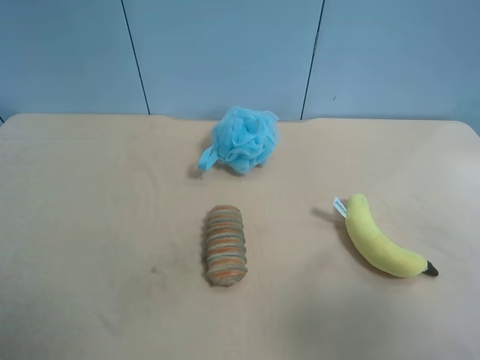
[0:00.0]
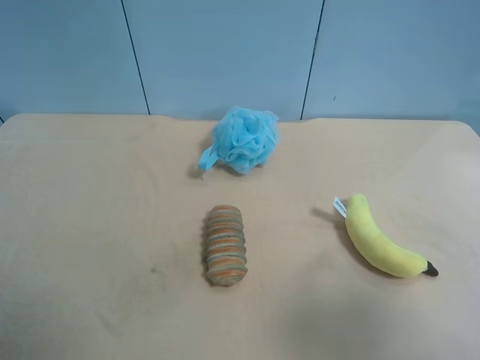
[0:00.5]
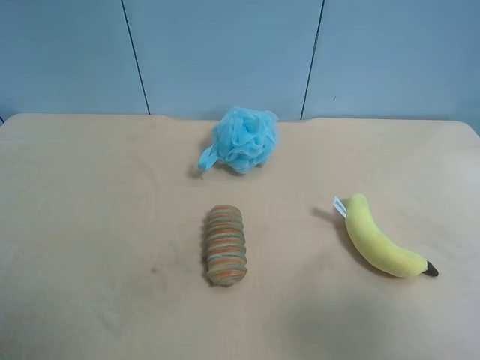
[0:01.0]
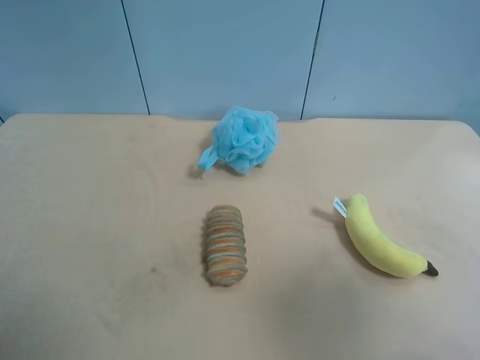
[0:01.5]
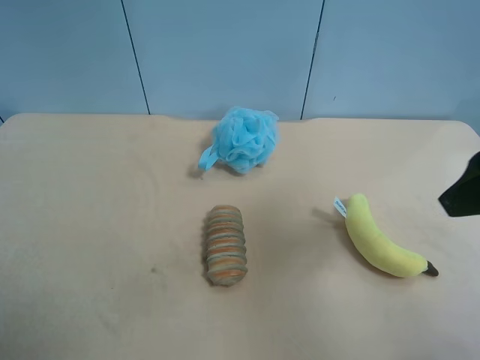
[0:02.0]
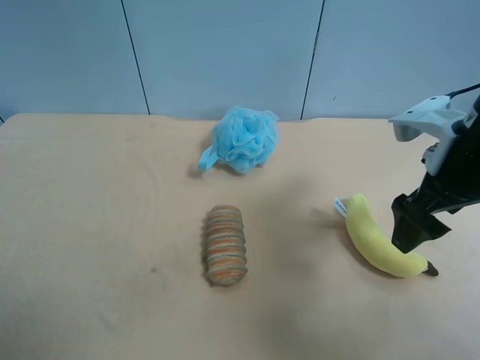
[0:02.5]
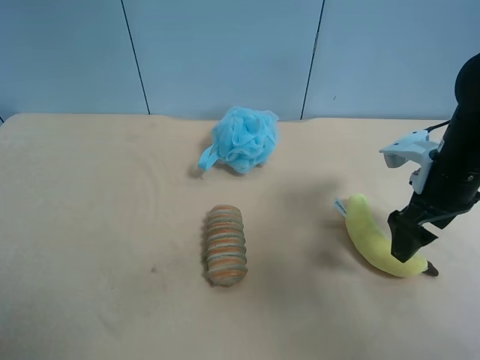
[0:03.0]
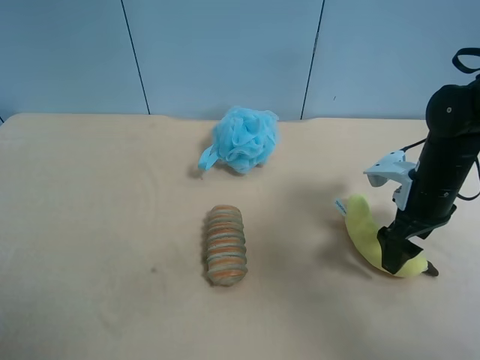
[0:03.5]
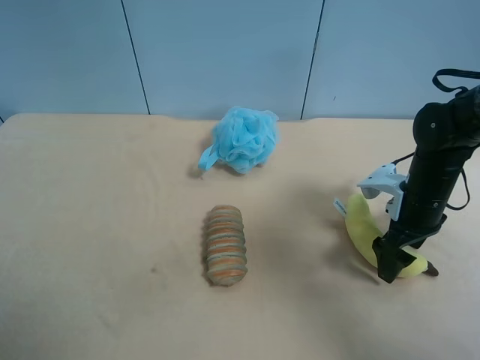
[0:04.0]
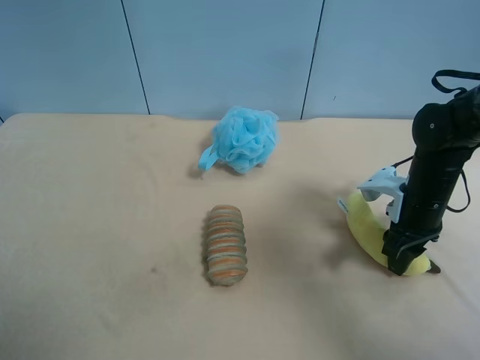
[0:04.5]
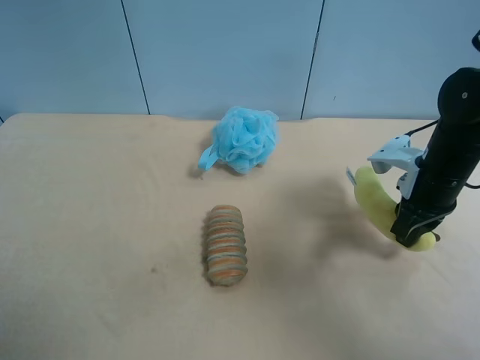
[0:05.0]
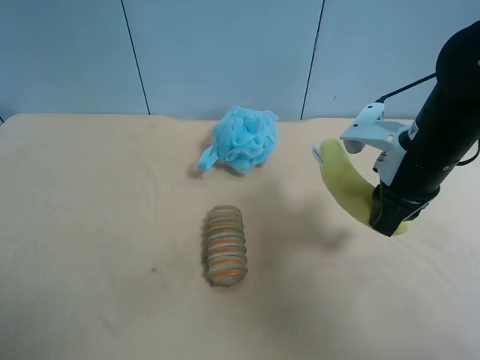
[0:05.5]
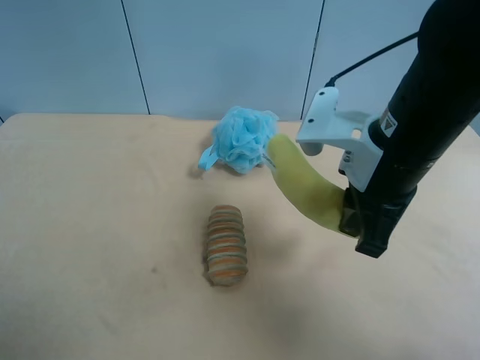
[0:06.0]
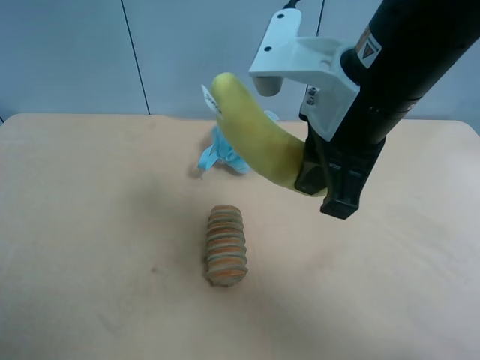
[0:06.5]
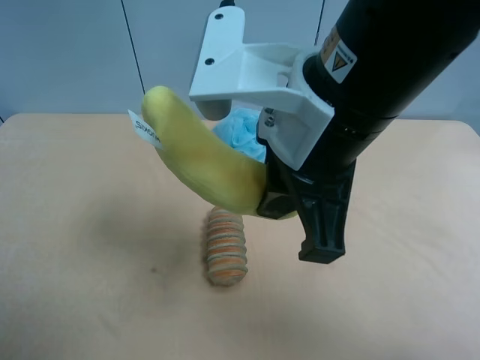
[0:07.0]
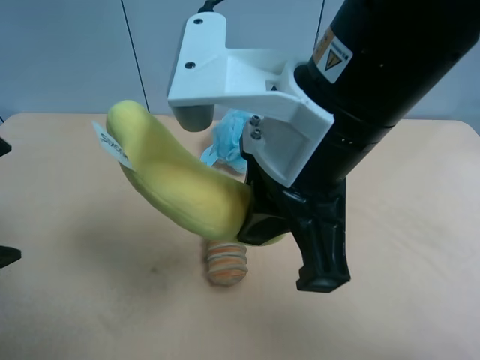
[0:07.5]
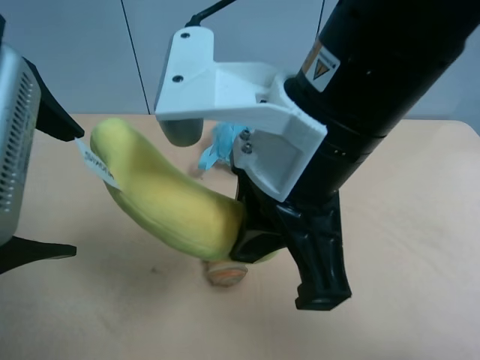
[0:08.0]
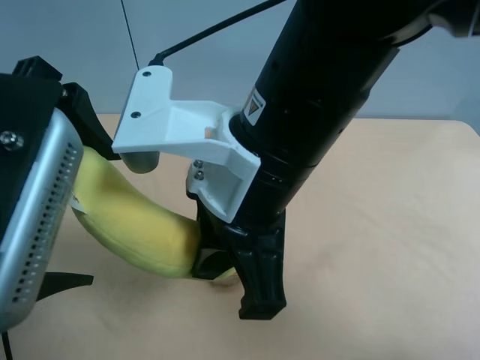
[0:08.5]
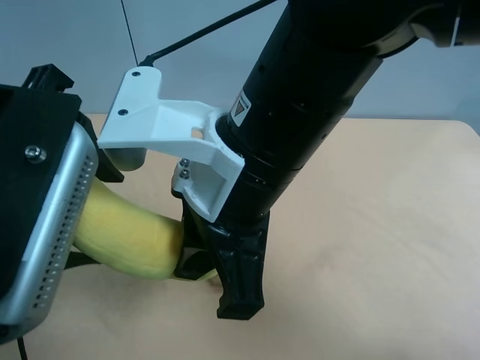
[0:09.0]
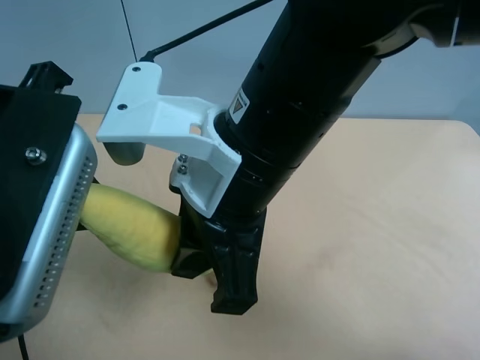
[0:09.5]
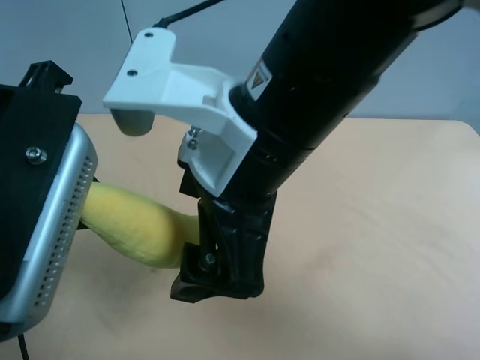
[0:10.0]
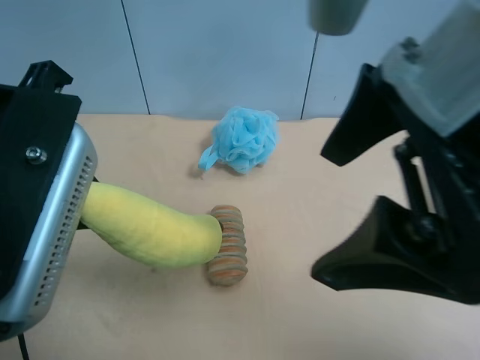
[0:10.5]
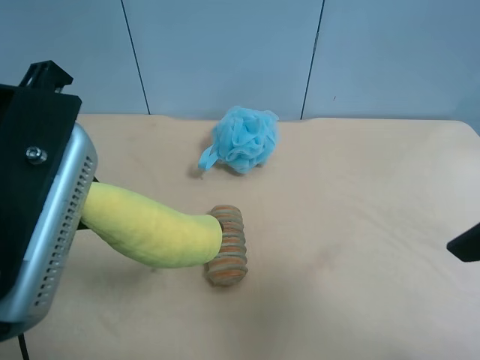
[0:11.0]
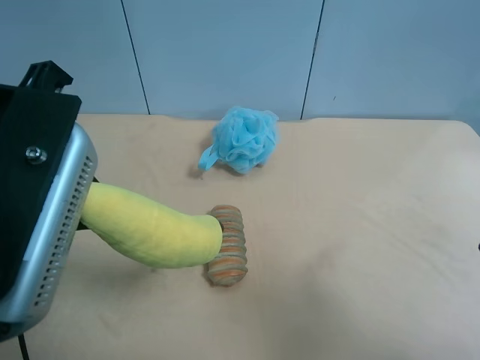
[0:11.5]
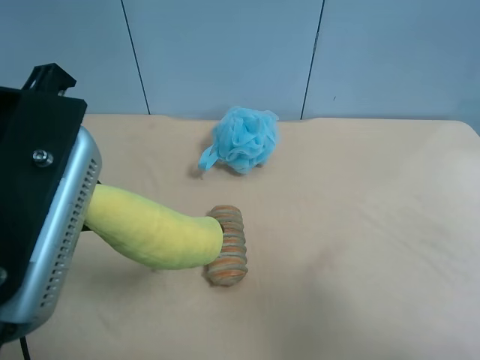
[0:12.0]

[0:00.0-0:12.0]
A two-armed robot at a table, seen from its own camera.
Task of the whole recording: use the right gripper to pick up the item and transfer it from the right gripper to the left gripper.
0:00.0 to 0:02.0: The right gripper is displaced forward by approximately 15 cm.
0:02.0 to 0:04.0: The right gripper shifts approximately 25 cm downward and forward.
0:04.0 to 0:06.0: The right gripper shifts approximately 20 cm upward, to the left and backward, and closes up.
0:06.0 to 0:08.0: The left gripper is displaced to the right, forward and upward by roughly 20 cm; the right gripper is displaced to the left, backward and upward by roughly 10 cm.
0:08.0 to 0:10.0: The right gripper opens up, while the left gripper closes.
0:10.0 to 0:12.0: The right gripper travels to the right and backward by some 25 cm.

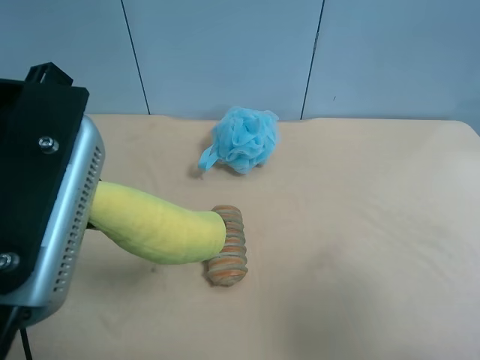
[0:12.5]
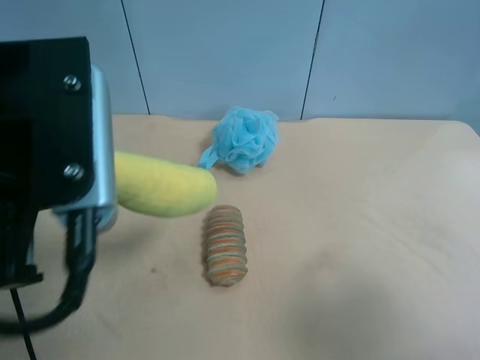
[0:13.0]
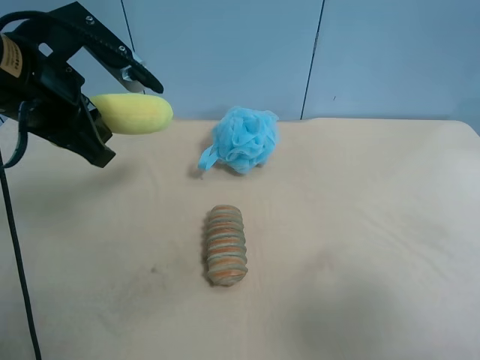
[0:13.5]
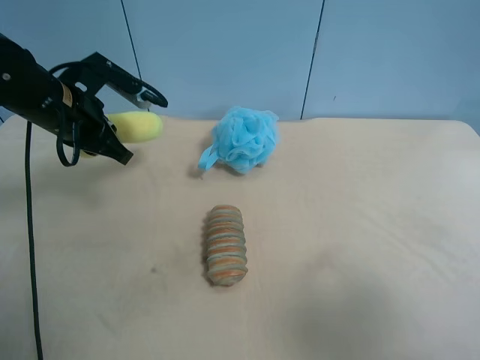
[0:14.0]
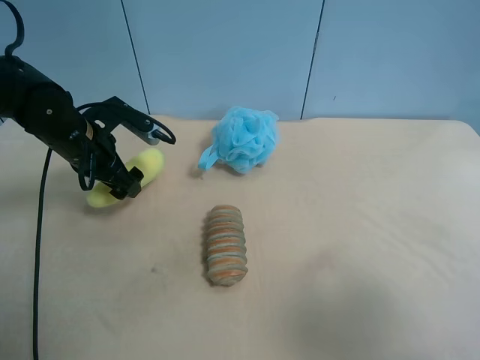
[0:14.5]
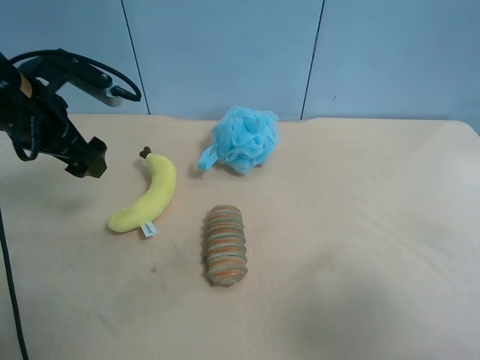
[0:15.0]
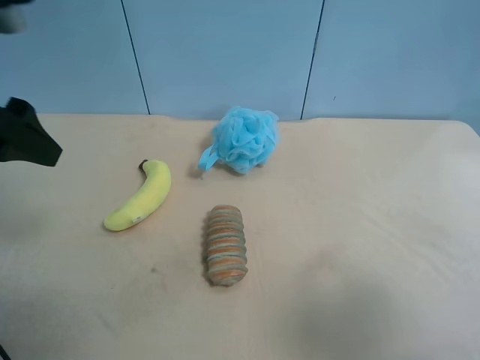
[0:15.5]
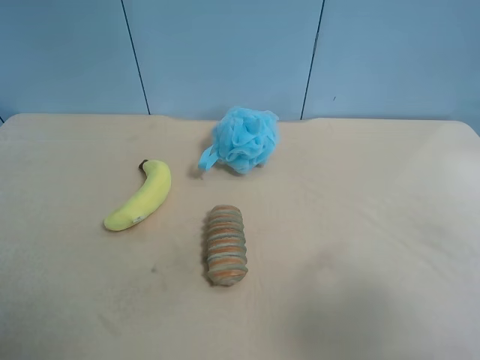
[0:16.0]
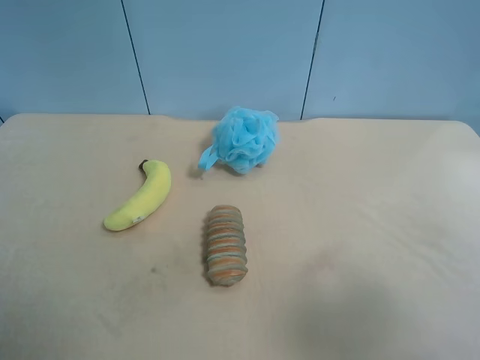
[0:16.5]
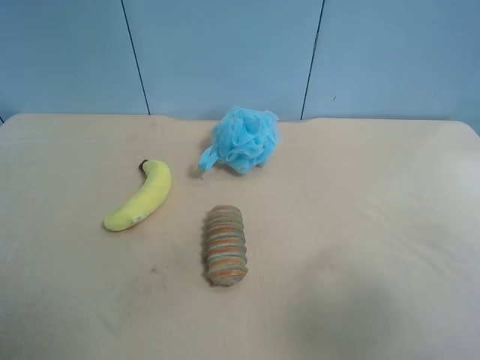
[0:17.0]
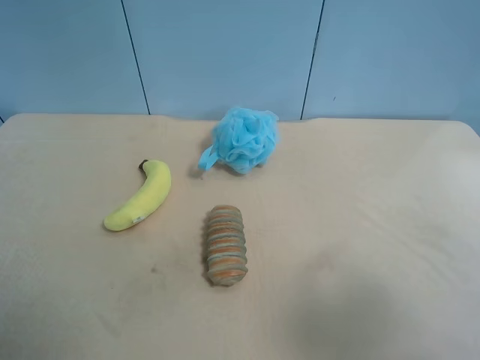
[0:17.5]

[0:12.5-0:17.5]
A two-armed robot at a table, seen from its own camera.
Task of the whole recording: use the right gripper to pick up the item and transfer it from the right gripper to the left gripper.
0:12.5 to 0:15.0: The left gripper goes about 20 cm forward, to the left and downward, and opens its fingers.
0:15.0 to 0:17.5: The left gripper shifts approximately 30 cm backward.

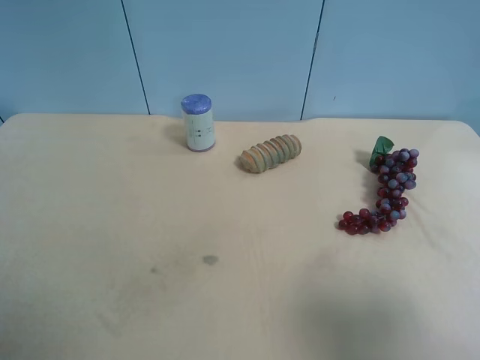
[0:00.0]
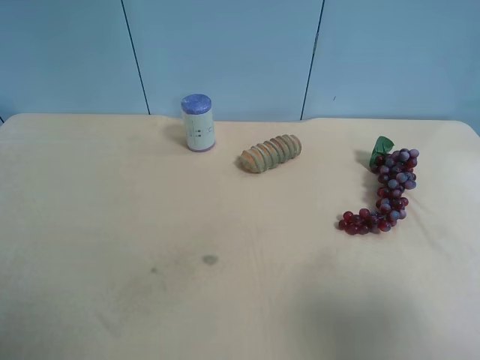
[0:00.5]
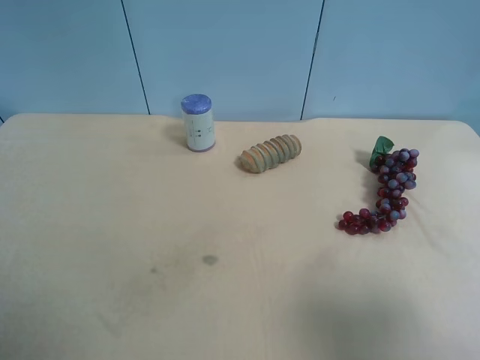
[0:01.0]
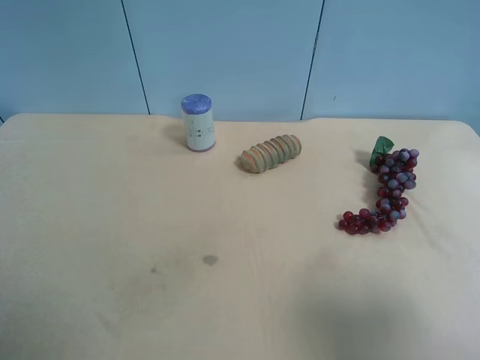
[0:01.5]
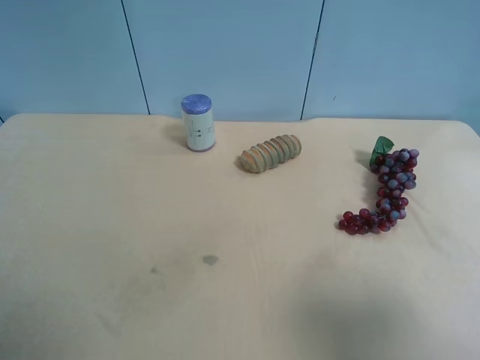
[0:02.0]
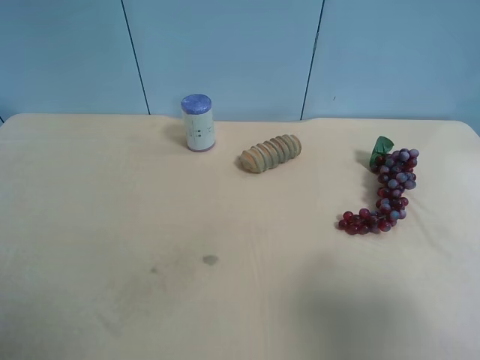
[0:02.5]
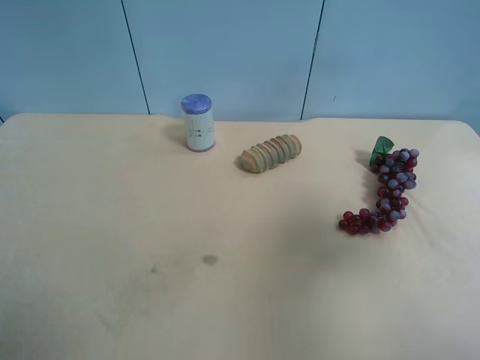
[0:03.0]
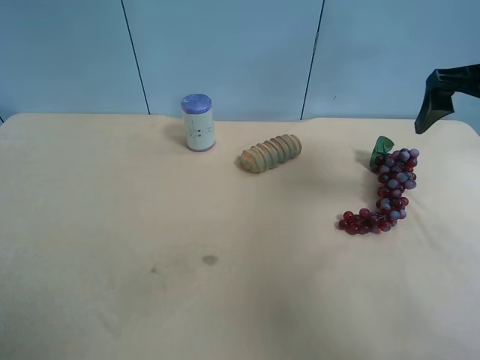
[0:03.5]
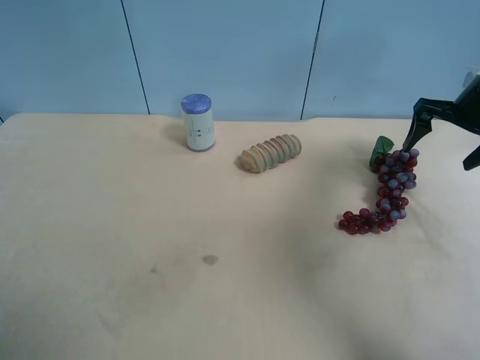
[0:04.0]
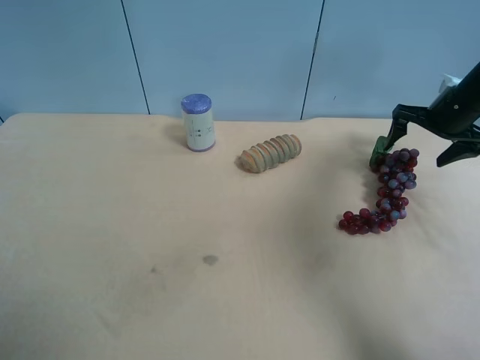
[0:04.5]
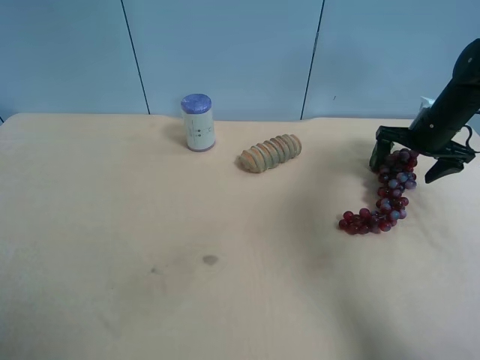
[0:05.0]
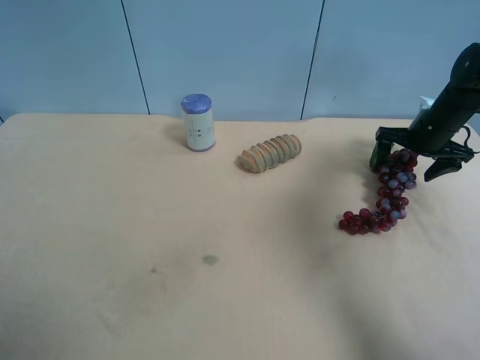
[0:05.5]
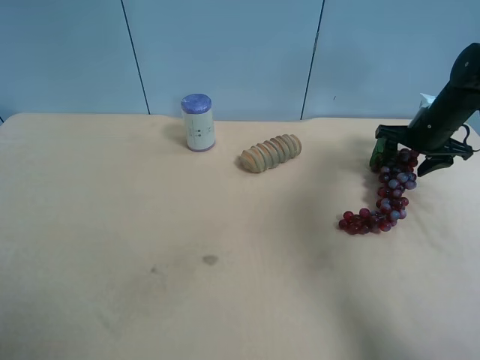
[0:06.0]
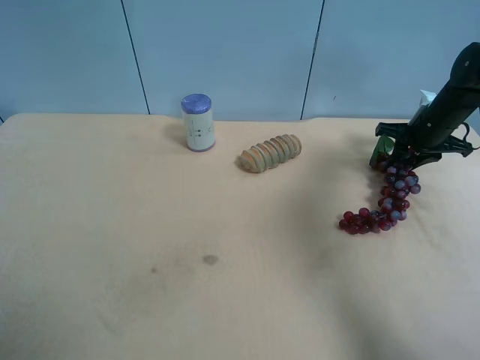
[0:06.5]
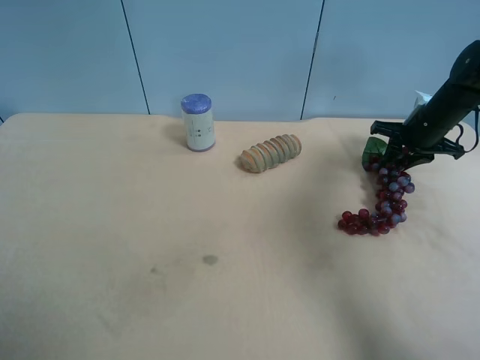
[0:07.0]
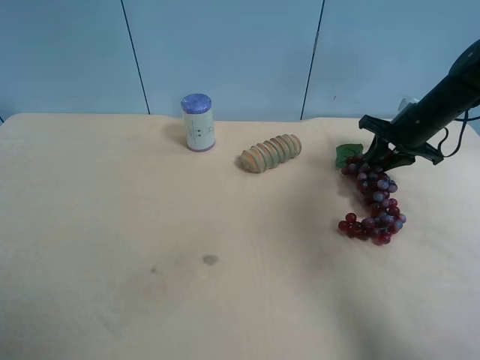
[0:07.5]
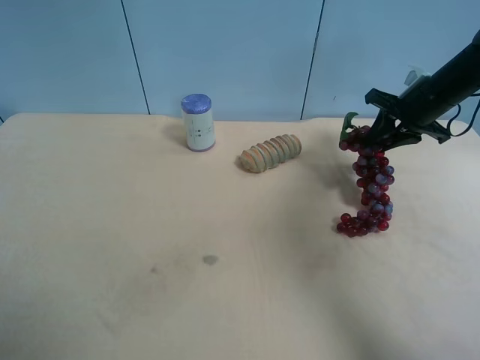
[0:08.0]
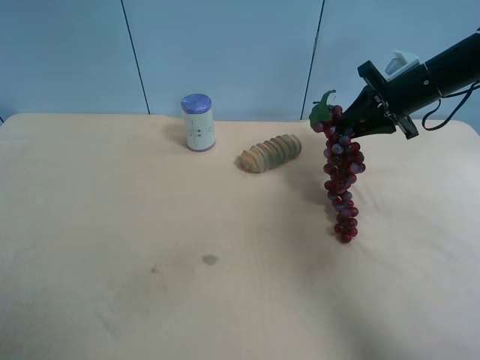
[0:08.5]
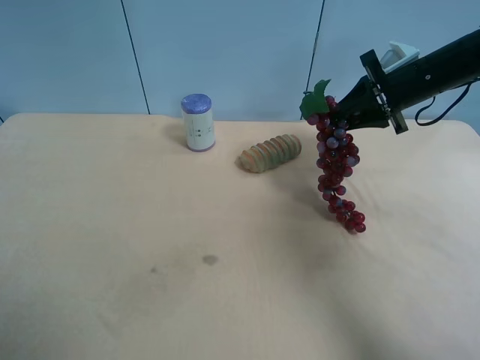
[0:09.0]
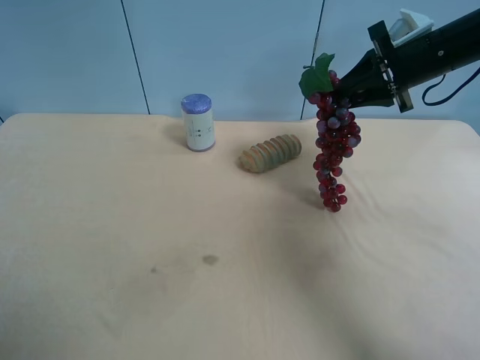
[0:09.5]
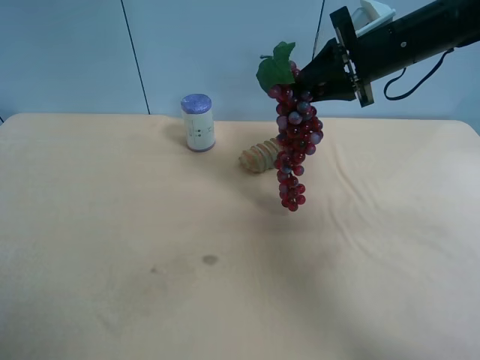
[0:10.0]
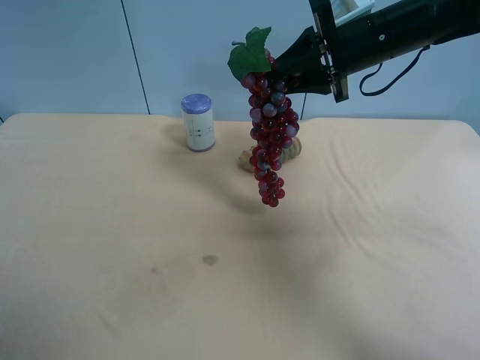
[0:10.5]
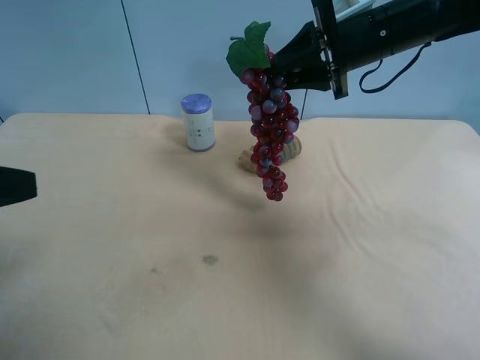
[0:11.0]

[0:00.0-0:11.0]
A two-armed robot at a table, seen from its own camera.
Task of the whole recording: use the right gripper to pick up the item and transfer it from the right gripper to the left gripper.
0:00.0 to 0:02.0: Neither gripper changes place.
0:02.0 to 0:03.5: The right gripper travels forward by some 30 cm.
0:03.5 to 0:05.5: The right gripper is displaced downward and forward by roughly 20 cm.
0:05.5 to 0:07.5: The right gripper closes up.
0:07.5 to 0:09.0: The right gripper goes roughly 10 cm upward.
0:09.0 to 0:11.0: The left gripper heads forward, covering approximately 10 cm; the right gripper heads to the left and upward, covering about 10 cm.
